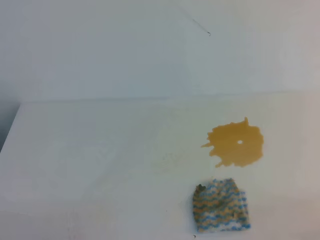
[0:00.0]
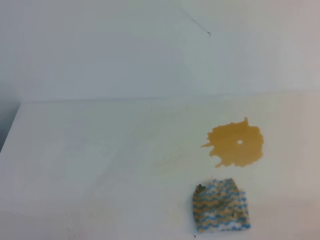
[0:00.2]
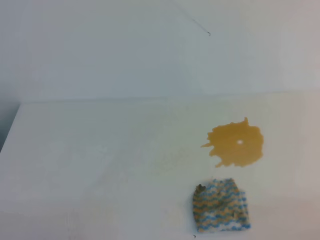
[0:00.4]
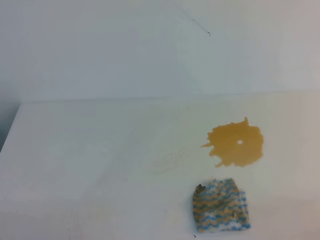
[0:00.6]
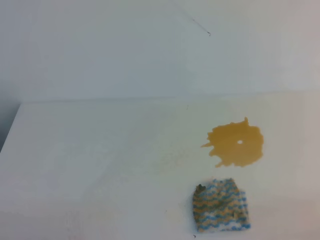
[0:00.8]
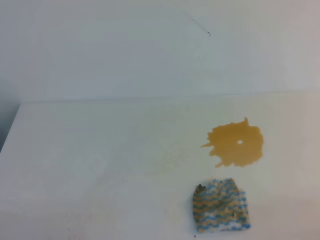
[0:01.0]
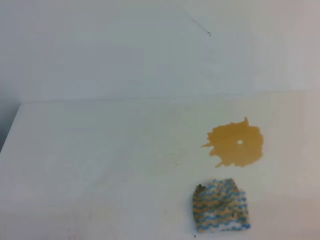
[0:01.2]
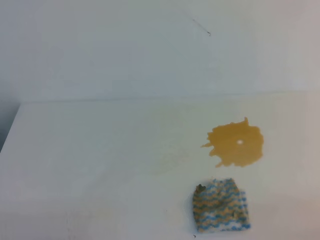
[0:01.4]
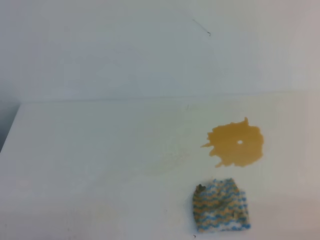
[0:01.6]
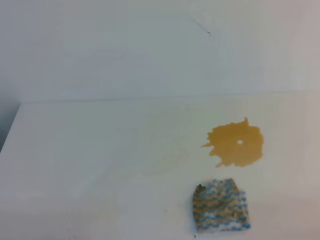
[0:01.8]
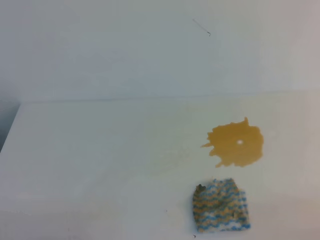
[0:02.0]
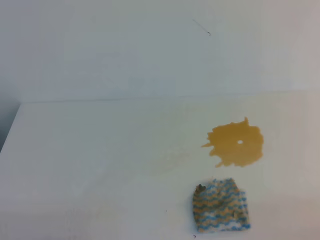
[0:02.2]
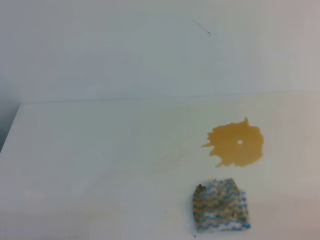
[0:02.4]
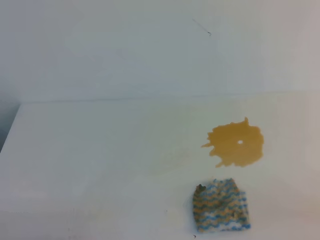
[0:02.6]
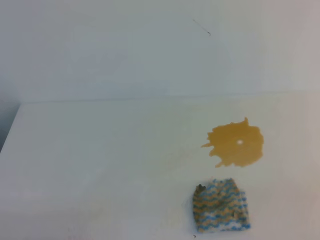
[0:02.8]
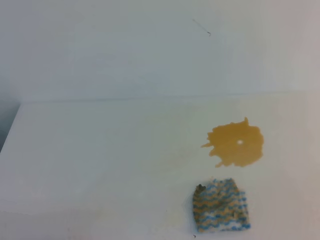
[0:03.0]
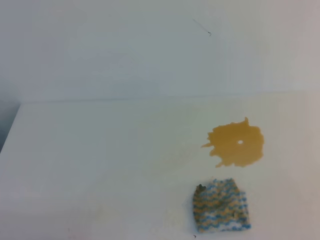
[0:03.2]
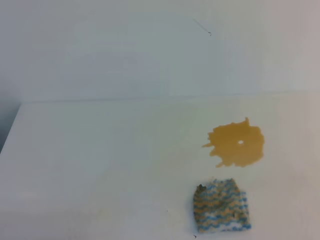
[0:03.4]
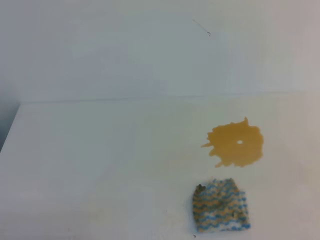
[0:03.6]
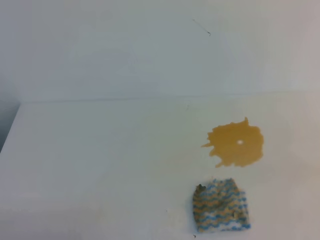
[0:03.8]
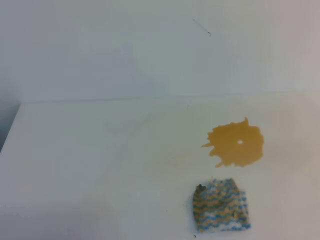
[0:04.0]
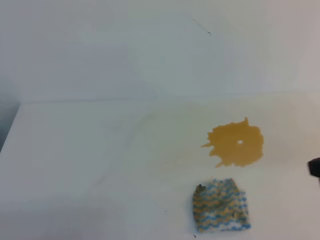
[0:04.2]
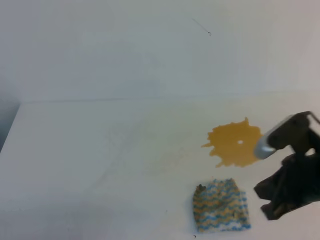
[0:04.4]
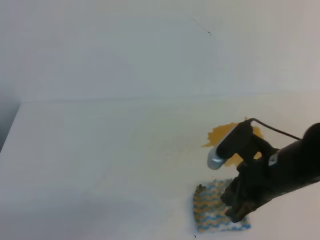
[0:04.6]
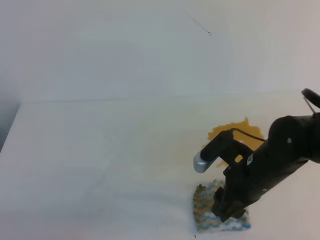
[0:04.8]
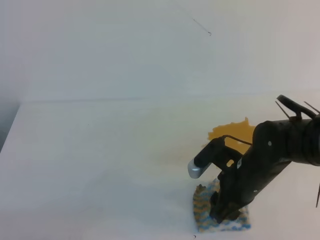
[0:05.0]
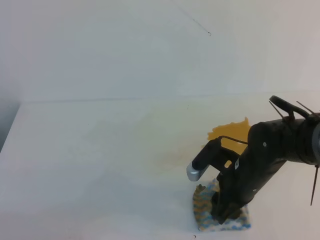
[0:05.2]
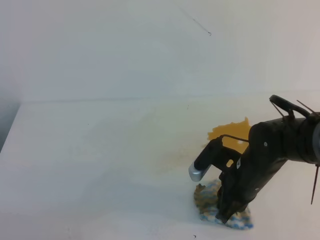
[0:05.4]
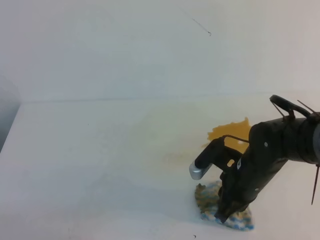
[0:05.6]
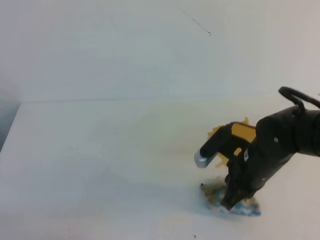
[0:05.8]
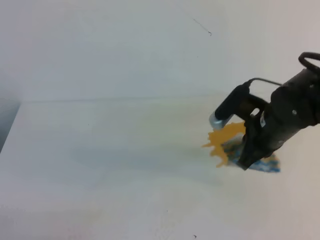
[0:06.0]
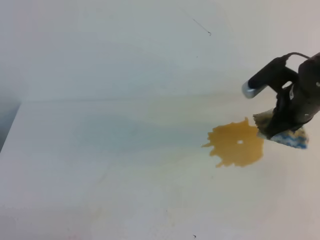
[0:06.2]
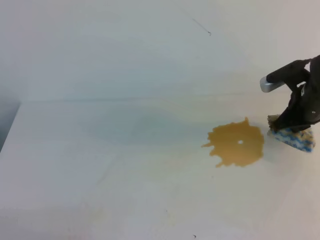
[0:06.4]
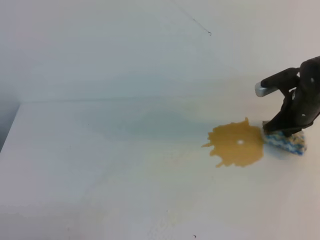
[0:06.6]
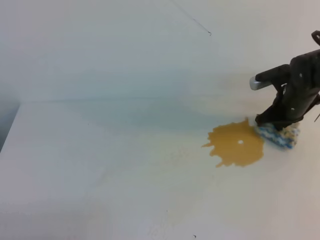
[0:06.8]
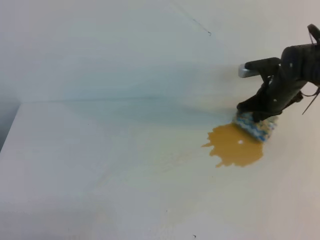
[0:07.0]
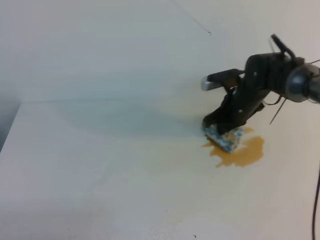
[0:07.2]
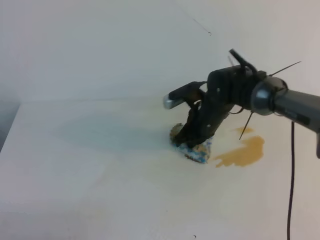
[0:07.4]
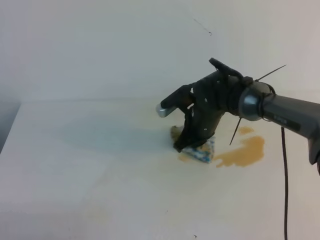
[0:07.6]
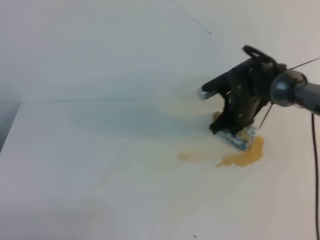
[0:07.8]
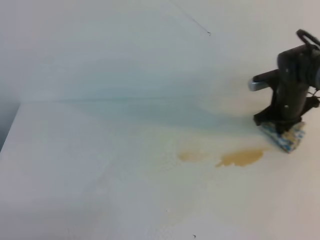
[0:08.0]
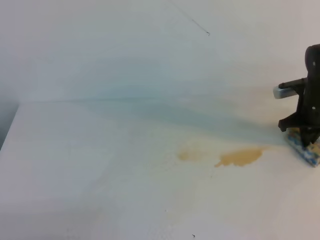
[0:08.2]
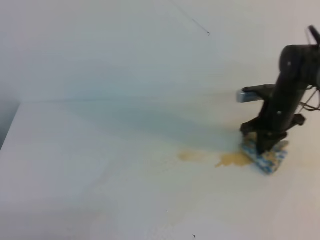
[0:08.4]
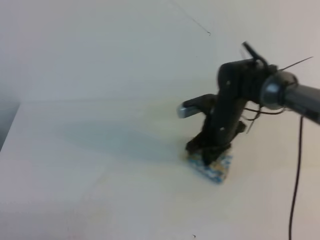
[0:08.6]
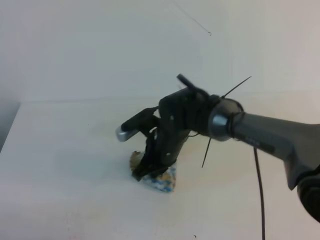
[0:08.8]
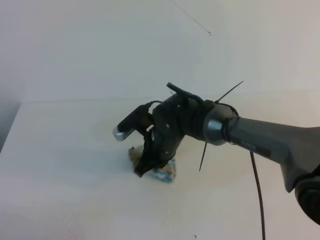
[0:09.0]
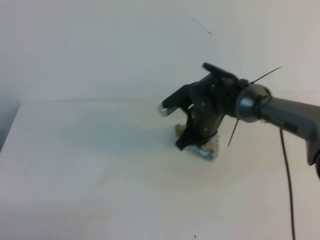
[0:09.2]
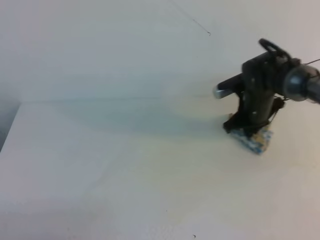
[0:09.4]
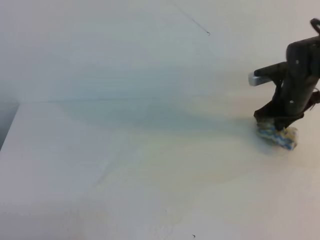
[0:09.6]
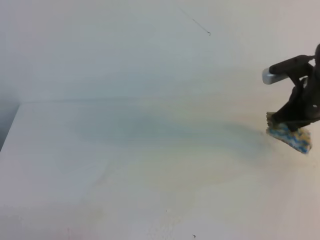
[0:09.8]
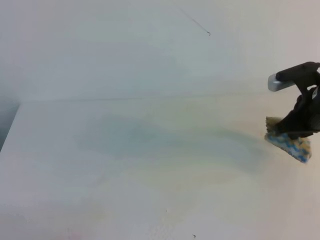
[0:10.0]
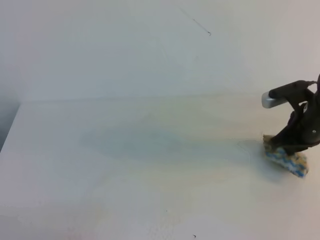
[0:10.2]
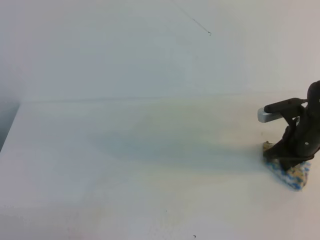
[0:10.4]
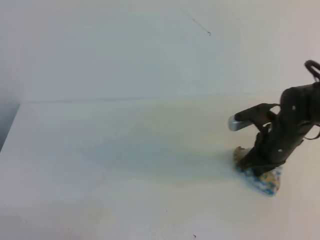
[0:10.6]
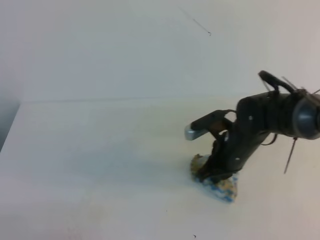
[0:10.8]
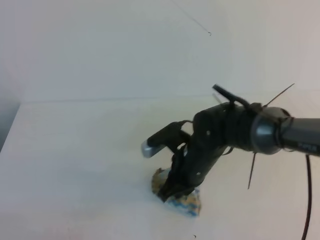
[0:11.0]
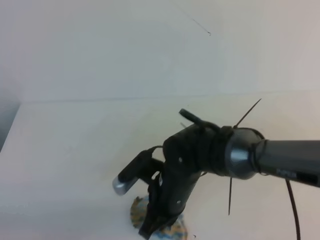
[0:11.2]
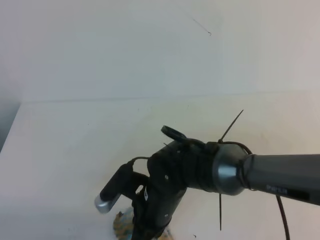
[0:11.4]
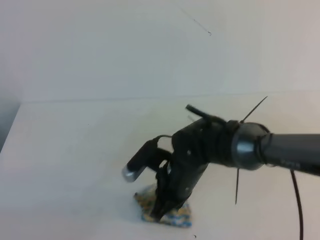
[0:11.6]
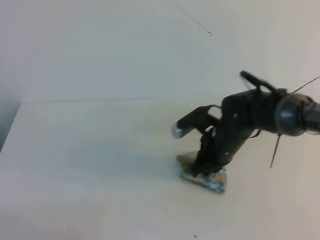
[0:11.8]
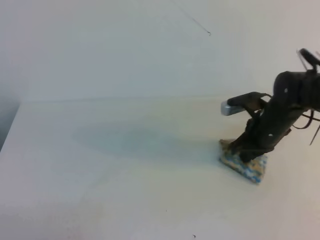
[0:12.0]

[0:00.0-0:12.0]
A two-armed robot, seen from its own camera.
0:00.0 to 0:01.6: Neither gripper changes place.
0:03.0 to 0:04.4: The right gripper is displaced forward and to the left by about 20 cm.
0:04.4 to 0:06.0: The right gripper goes about 10 cm forward, moves roughly 10 cm downward and comes back, and opens and closes again.
0:06.0 to 0:07.6: The right gripper is displaced forward, to the left and downward by some 15 cm.
0:07.6 to 0:09.0: The right gripper goes to the right and returns, approximately 15 cm each way.
0:09.0 to 0:10.4: The right gripper heads to the right, covering roughly 20 cm.
0:10.4 to 0:12.0: The right gripper goes to the left and returns, approximately 25 cm each way.

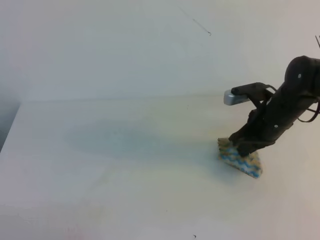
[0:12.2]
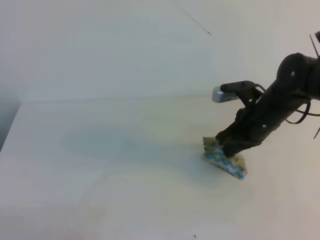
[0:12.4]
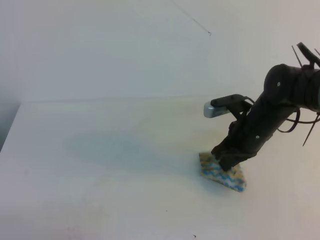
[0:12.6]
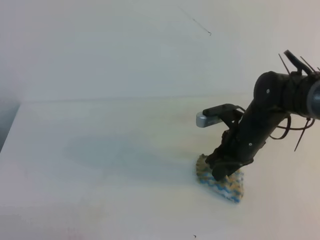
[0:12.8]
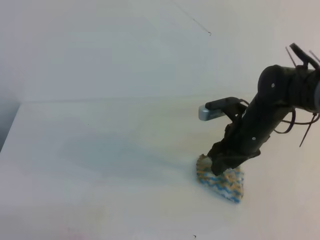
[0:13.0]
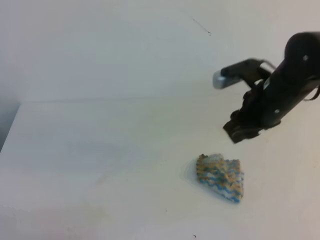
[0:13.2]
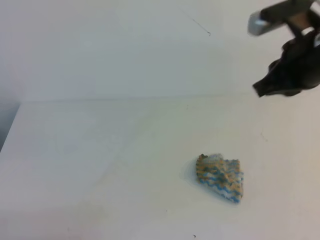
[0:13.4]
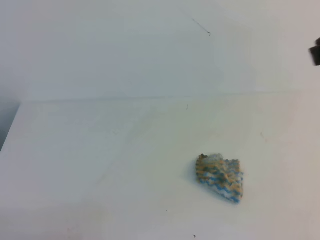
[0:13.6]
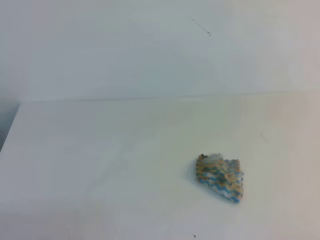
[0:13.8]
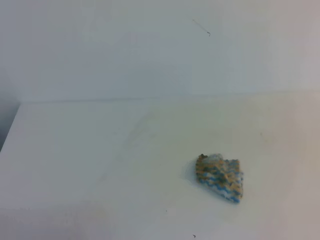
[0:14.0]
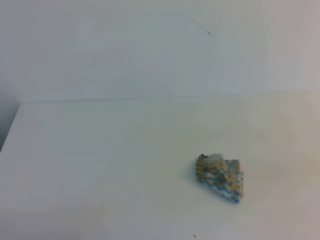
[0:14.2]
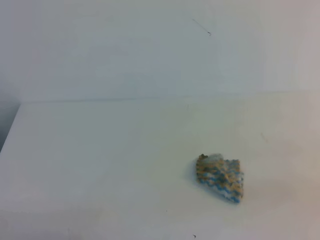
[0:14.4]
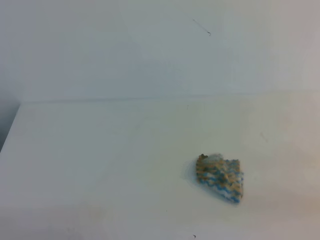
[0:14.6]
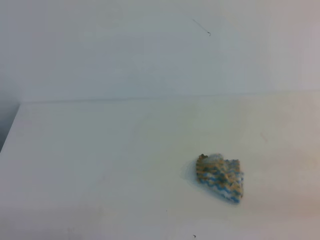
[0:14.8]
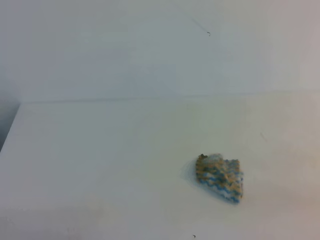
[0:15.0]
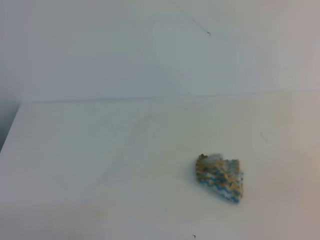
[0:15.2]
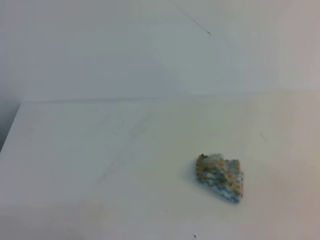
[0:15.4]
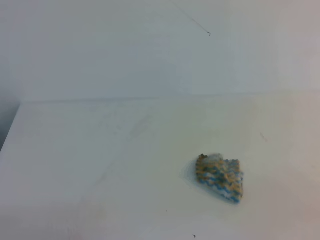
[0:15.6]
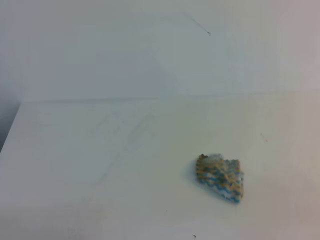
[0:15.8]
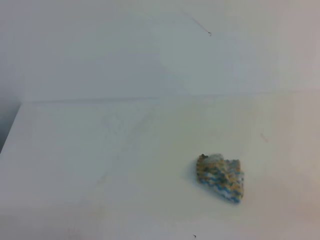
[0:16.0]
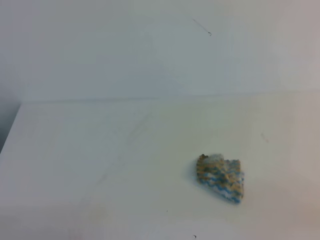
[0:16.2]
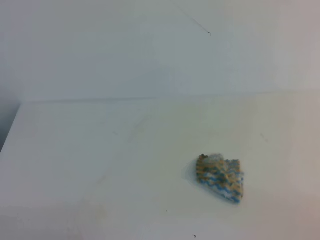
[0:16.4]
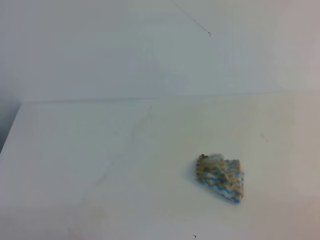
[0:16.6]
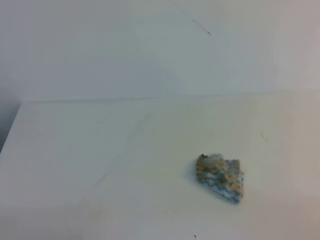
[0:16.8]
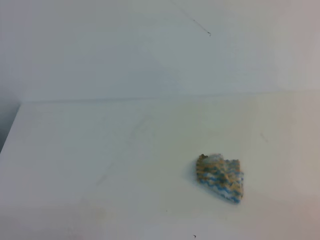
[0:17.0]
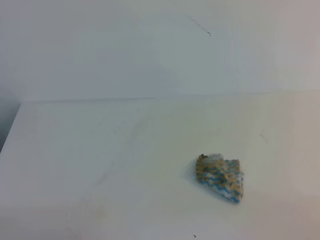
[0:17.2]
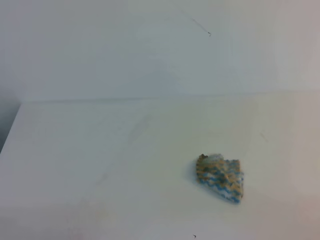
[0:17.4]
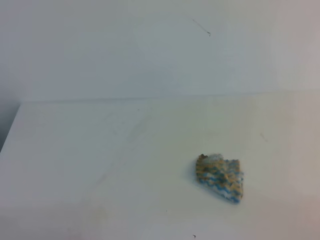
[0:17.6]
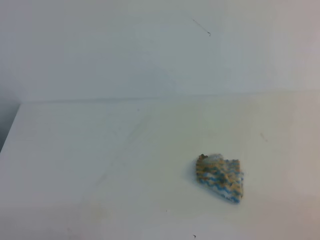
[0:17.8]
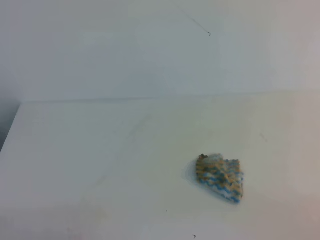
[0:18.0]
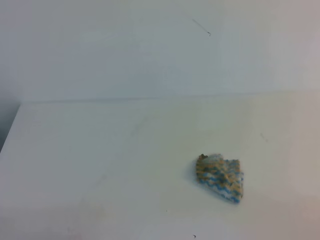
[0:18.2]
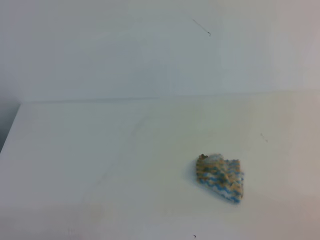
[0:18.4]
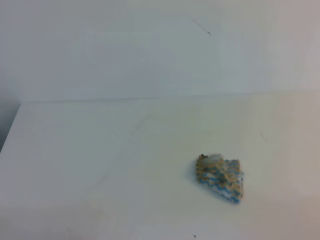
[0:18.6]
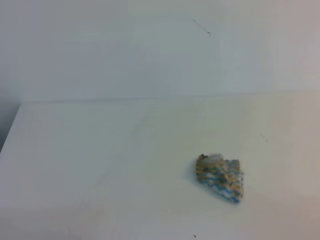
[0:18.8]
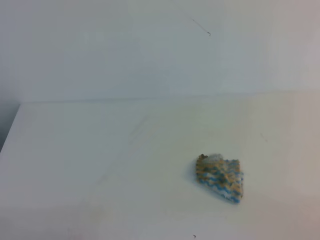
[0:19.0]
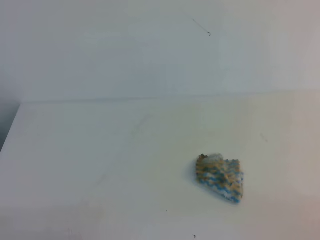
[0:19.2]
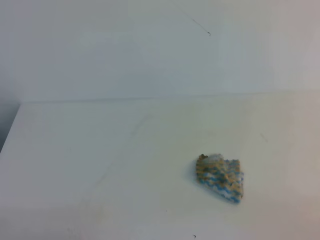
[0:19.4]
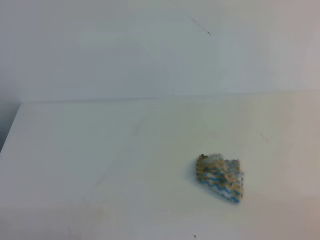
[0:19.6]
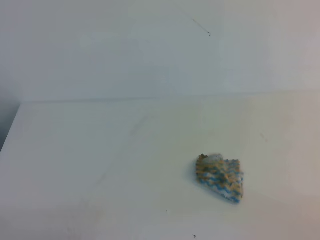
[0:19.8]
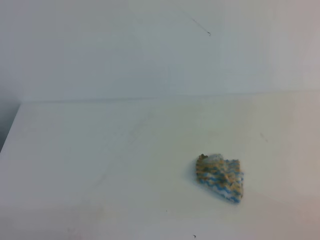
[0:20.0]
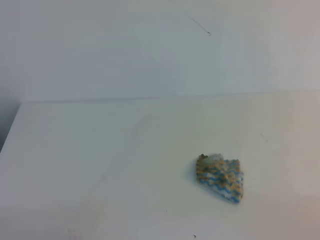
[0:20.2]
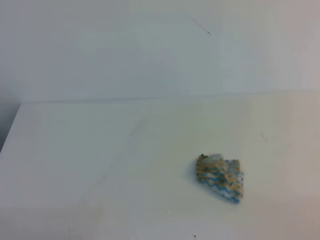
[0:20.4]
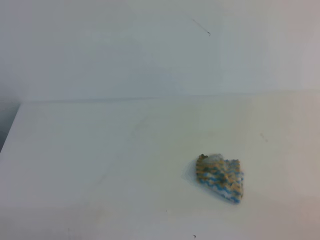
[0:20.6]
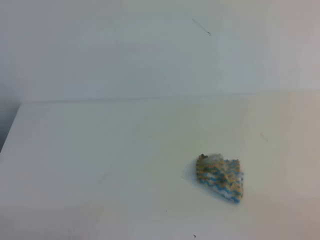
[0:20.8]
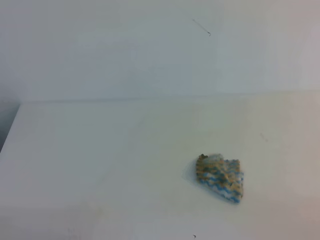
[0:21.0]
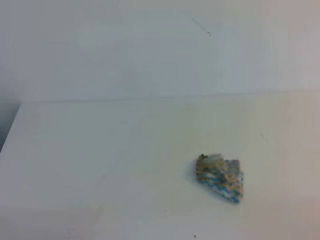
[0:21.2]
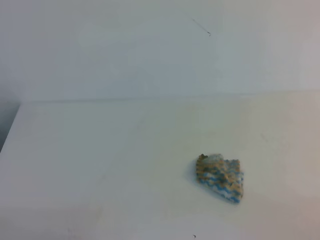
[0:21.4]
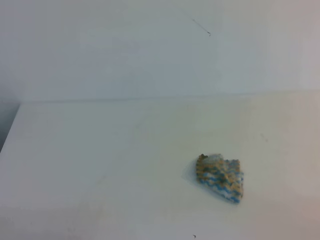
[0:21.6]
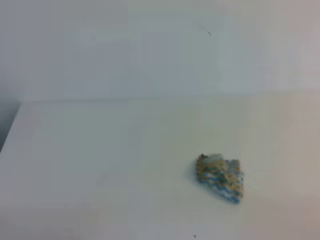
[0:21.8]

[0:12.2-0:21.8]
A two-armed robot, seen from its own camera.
0:12.2 to 0:13.8: The right gripper heads upward and backward, covering some 30 cm, and opens, then closes again.
0:13.8 to 0:15.4: The right gripper is displaced downward, backward and to the right by approximately 20 cm.
0:17.0 to 0:21.8: Neither gripper changes place.
